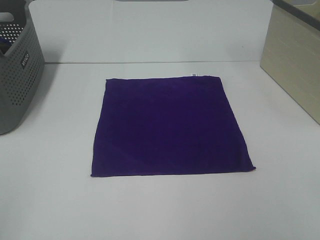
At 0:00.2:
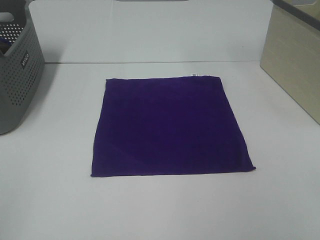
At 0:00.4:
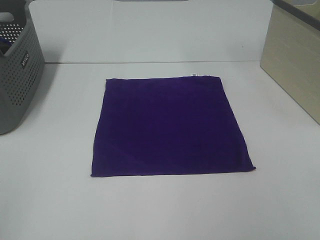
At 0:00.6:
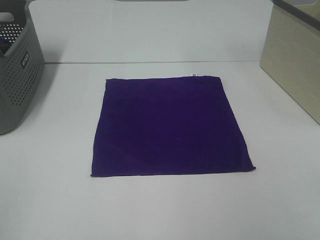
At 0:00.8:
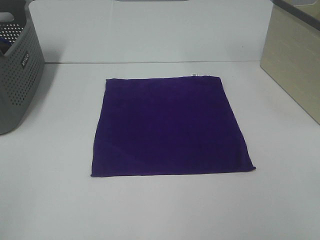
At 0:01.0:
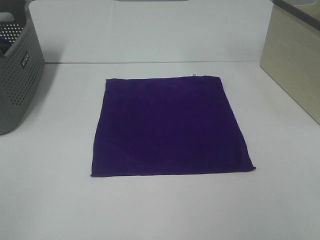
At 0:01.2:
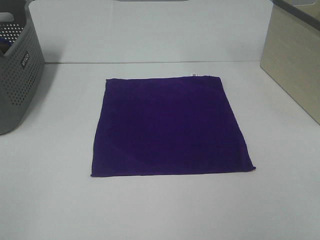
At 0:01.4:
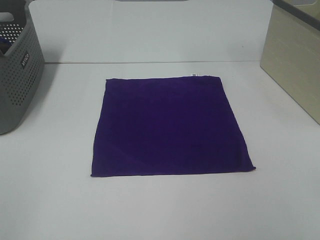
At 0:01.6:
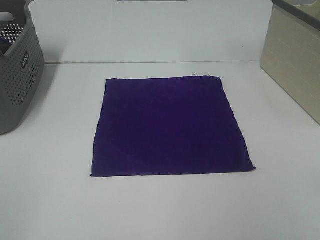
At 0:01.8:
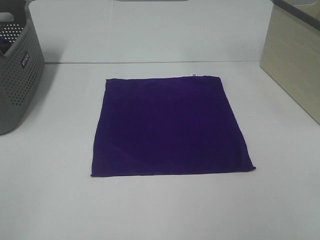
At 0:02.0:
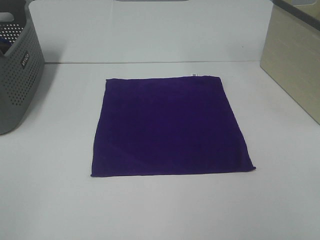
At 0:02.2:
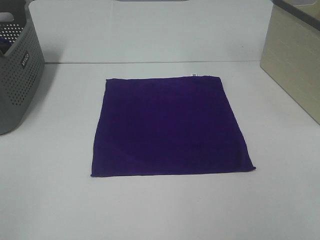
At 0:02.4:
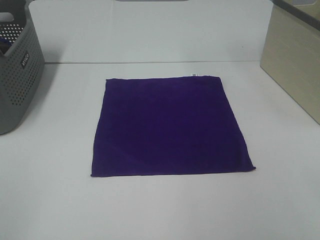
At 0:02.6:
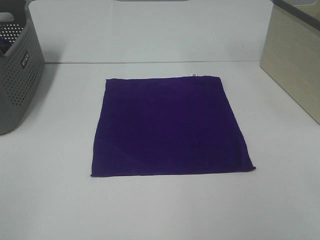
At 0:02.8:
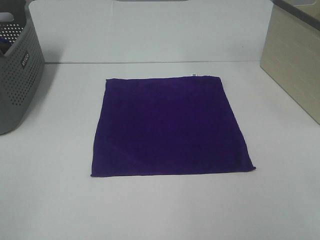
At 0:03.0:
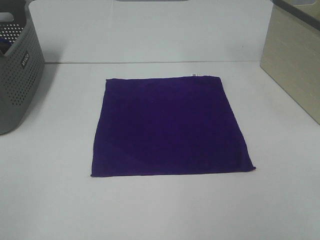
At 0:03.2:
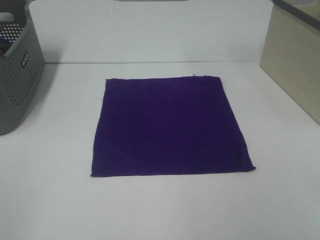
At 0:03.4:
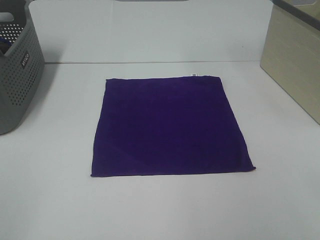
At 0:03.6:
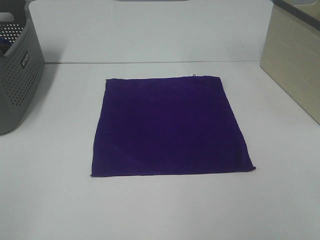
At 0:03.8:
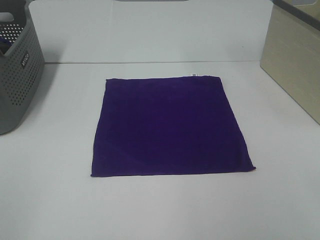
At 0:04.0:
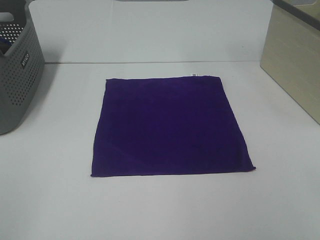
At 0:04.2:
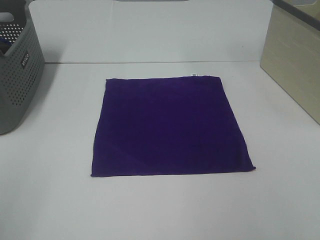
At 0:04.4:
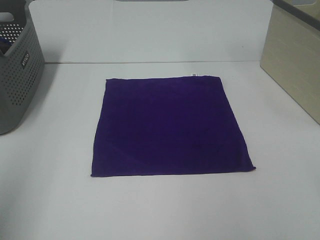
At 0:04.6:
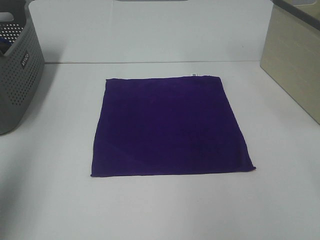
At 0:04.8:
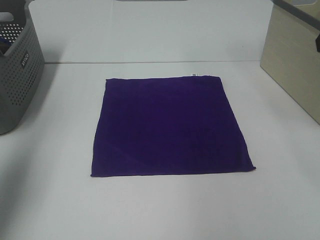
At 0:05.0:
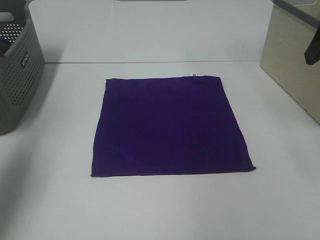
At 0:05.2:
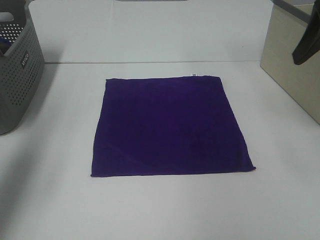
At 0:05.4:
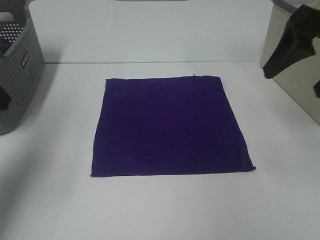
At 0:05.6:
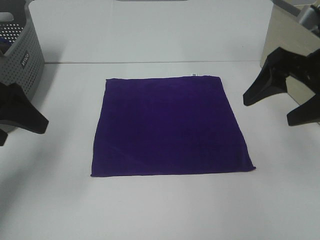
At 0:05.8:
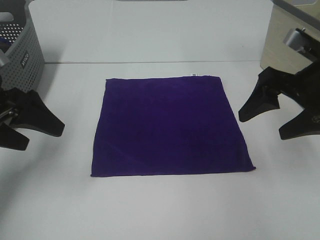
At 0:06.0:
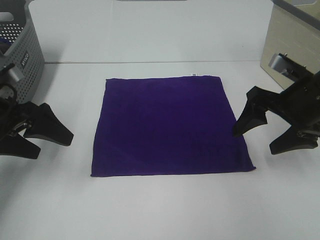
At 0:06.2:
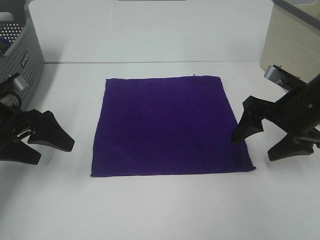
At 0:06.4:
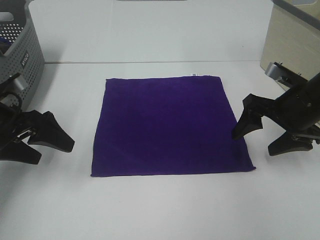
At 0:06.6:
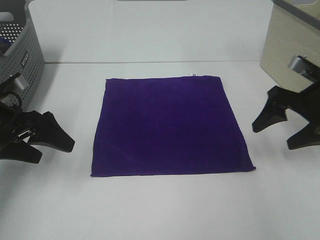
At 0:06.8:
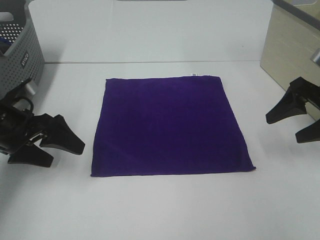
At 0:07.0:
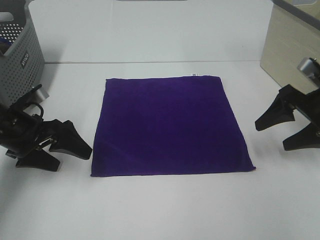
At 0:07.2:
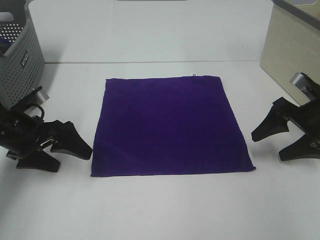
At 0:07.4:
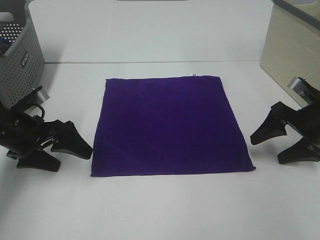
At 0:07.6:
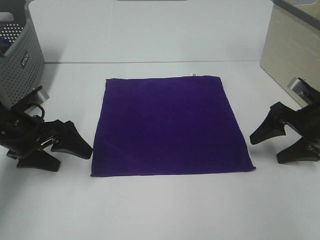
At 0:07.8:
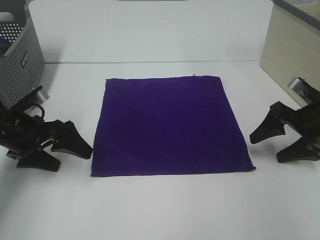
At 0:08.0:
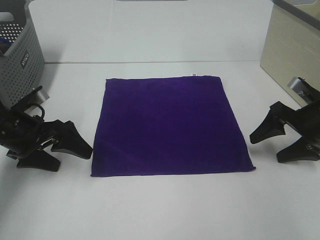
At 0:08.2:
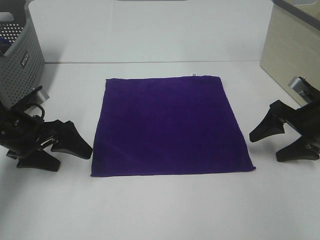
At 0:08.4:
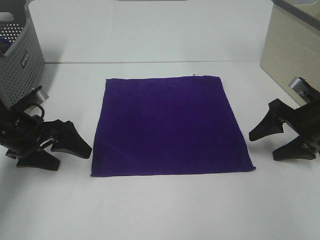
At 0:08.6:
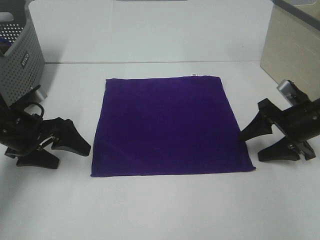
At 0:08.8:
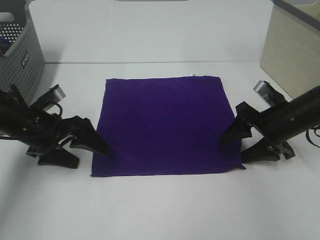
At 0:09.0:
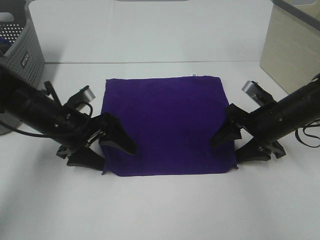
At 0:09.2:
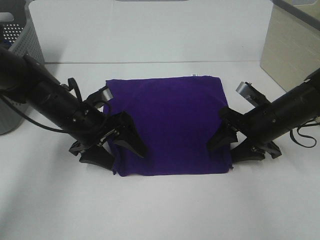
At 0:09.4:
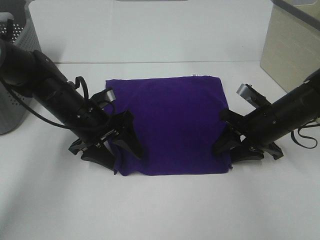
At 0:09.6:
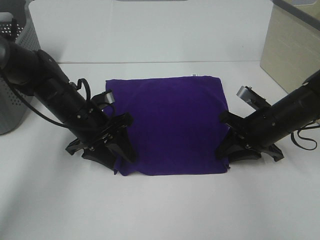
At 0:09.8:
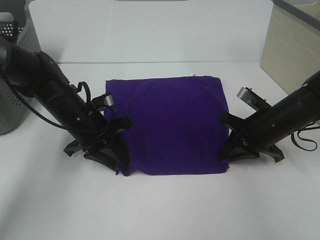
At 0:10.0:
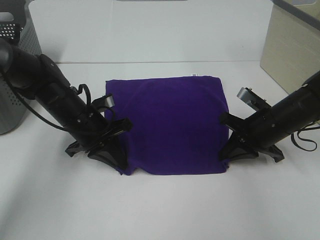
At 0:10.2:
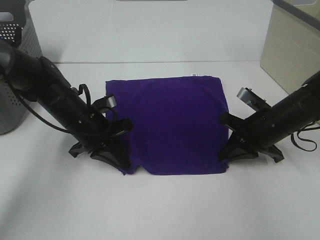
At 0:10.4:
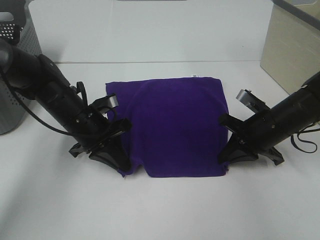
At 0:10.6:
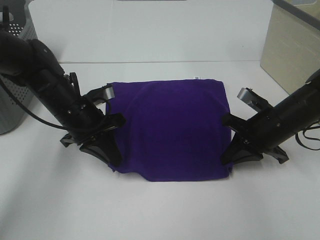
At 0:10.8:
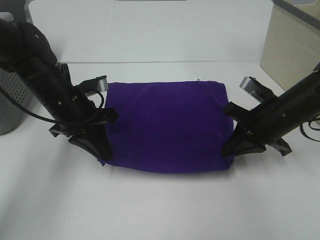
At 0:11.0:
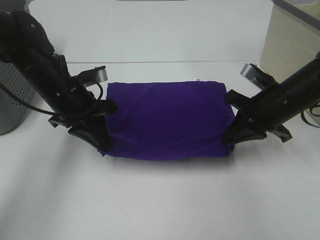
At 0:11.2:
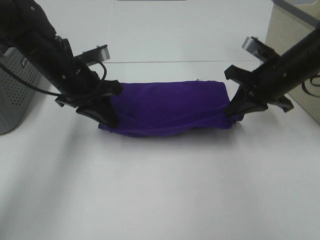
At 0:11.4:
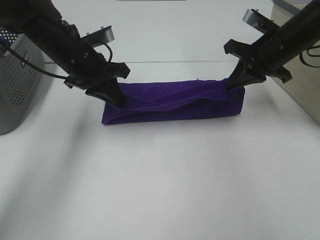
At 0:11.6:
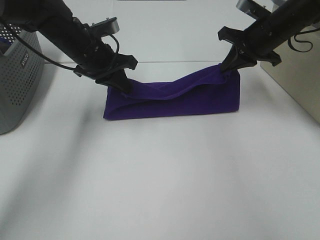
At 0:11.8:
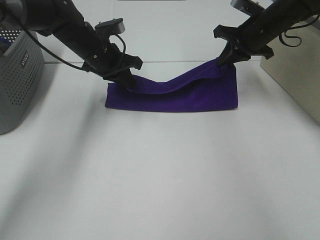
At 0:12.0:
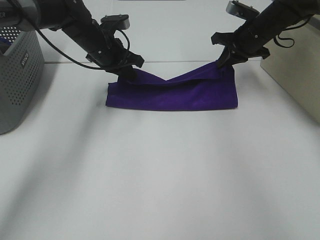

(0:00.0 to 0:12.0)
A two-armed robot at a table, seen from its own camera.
Task of the whole recording: Fold towels.
Step, 0:00.0 - 0:09.8: Left hand: grab the bottom left corner of purple towel.
Step, 0:00.0 - 0:09.8: Right hand: grab the bottom right corner of purple towel.
0:01.6 - 0:03.0: Both grippers stay put.
0:03.0 - 0:04.4: The left gripper travels forward and upward by roughly 10 cm.
0:04.4 - 0:06.0: Both grippers move downward and forward, about 25 cm.
0:06.0 - 0:07.6: The left gripper shifts roughly 5 cm downward; the right gripper is displaced downward and to the right by roughly 10 cm.
0:07.6 - 0:09.0: The right gripper goes about 10 cm to the left, while the left gripper is displaced to the right by some 10 cm.
0:09.0 - 0:10.4: The left gripper closes its fingers. Meanwhile the right gripper closes its fingers.
0:10.4 - 0:12.0: Both grippers travel together forward and upward, roughly 20 cm.

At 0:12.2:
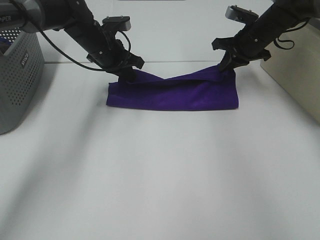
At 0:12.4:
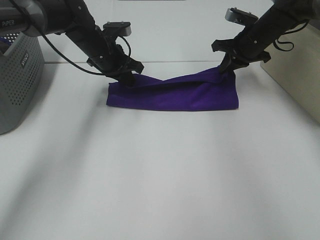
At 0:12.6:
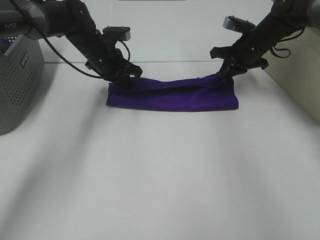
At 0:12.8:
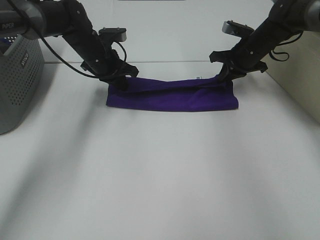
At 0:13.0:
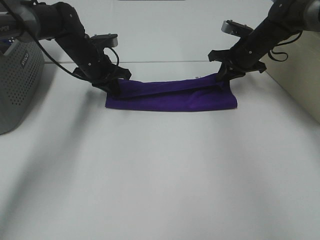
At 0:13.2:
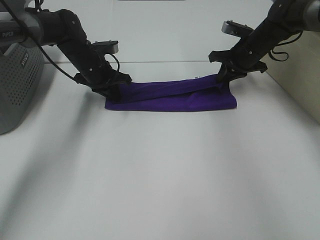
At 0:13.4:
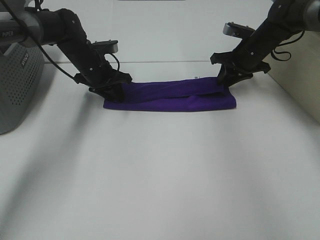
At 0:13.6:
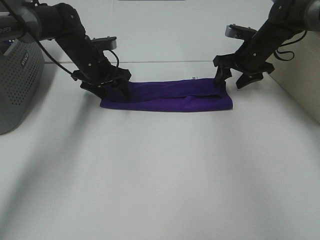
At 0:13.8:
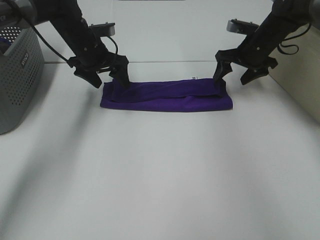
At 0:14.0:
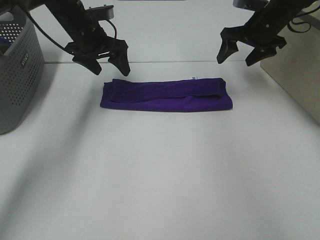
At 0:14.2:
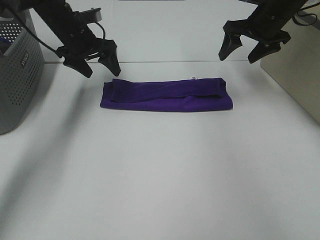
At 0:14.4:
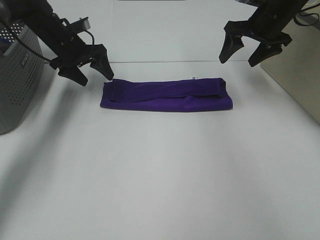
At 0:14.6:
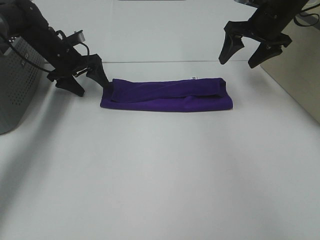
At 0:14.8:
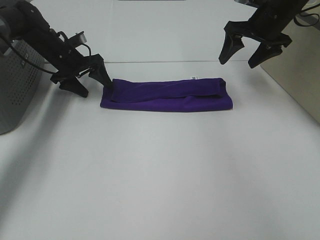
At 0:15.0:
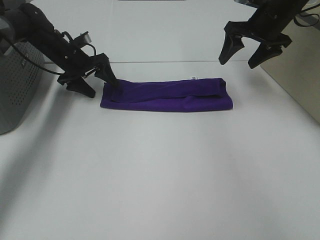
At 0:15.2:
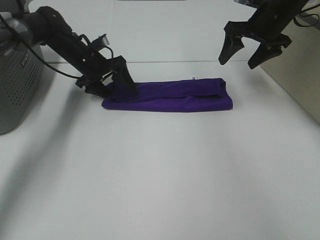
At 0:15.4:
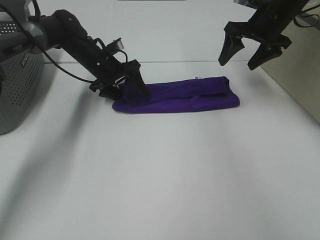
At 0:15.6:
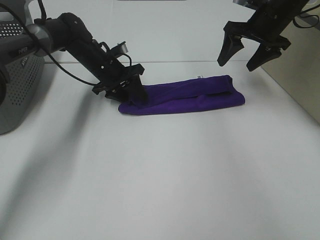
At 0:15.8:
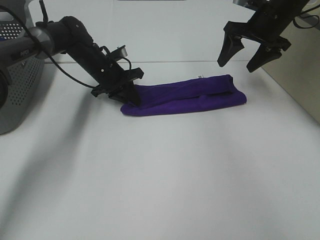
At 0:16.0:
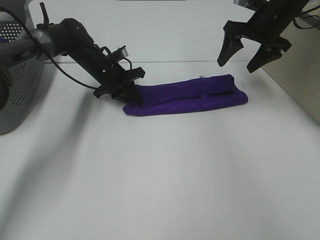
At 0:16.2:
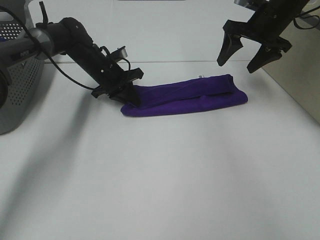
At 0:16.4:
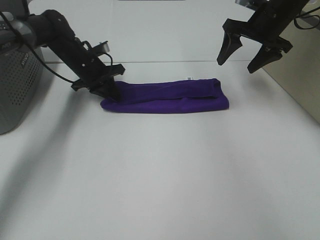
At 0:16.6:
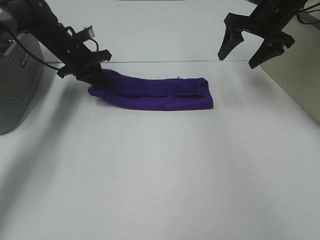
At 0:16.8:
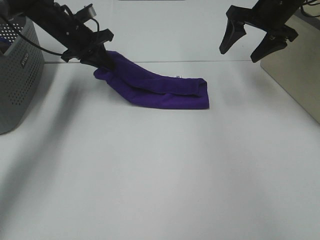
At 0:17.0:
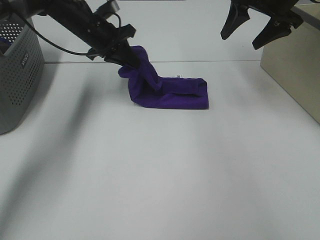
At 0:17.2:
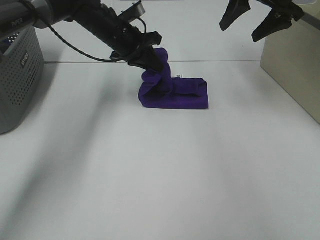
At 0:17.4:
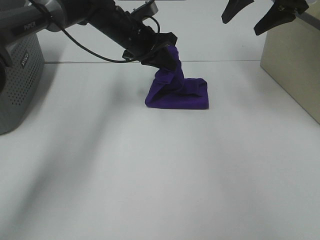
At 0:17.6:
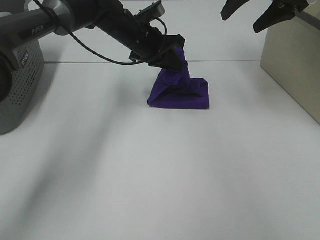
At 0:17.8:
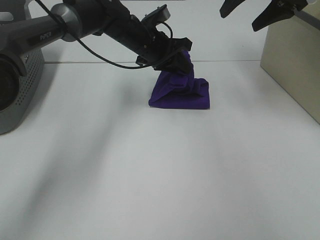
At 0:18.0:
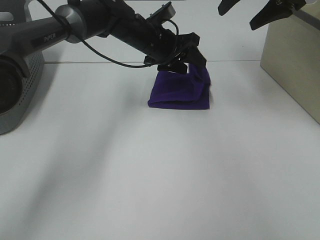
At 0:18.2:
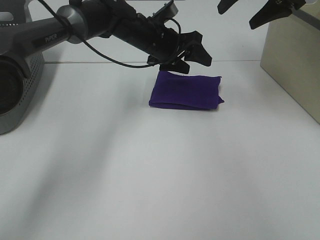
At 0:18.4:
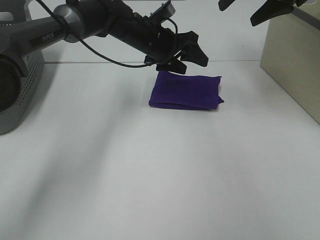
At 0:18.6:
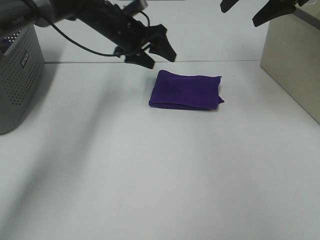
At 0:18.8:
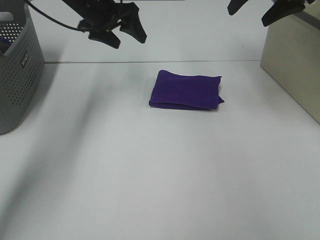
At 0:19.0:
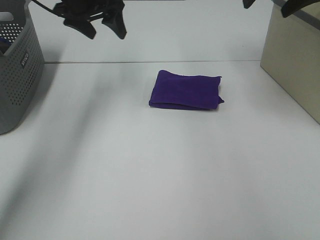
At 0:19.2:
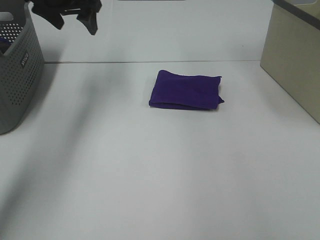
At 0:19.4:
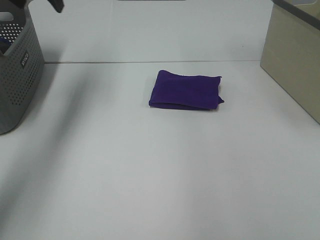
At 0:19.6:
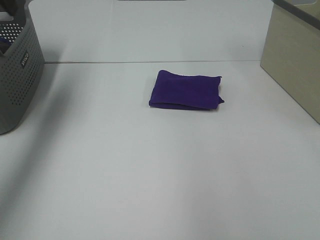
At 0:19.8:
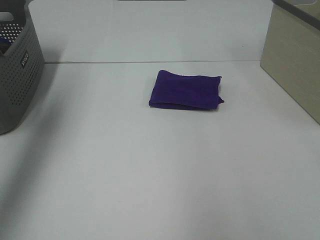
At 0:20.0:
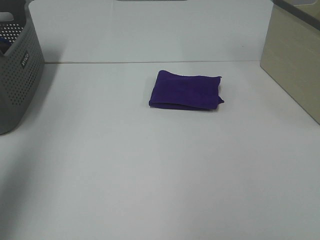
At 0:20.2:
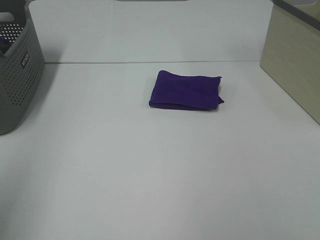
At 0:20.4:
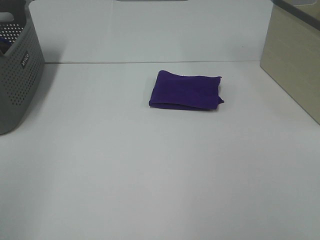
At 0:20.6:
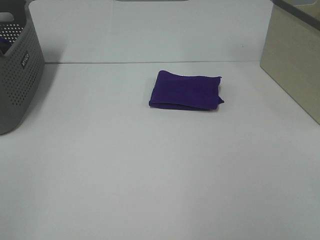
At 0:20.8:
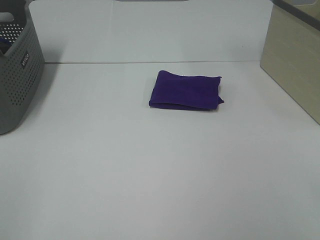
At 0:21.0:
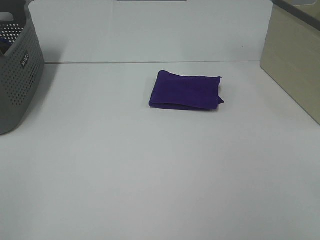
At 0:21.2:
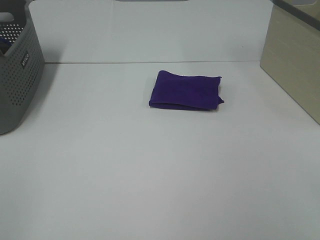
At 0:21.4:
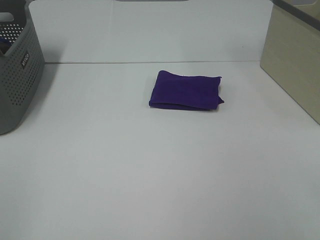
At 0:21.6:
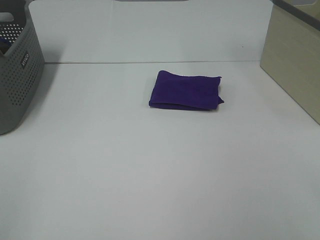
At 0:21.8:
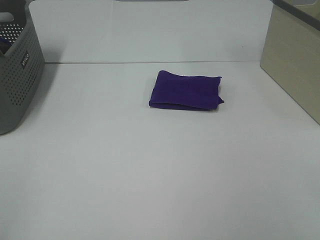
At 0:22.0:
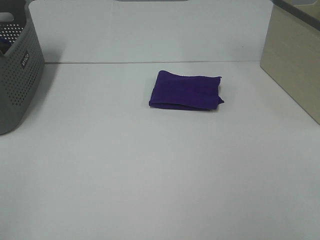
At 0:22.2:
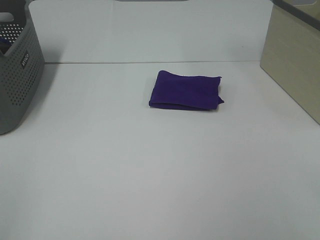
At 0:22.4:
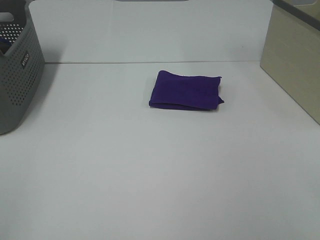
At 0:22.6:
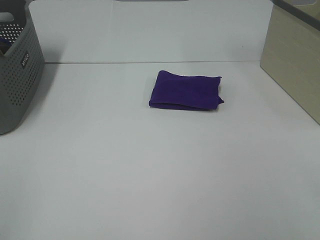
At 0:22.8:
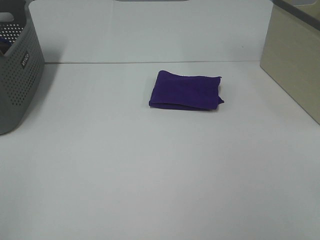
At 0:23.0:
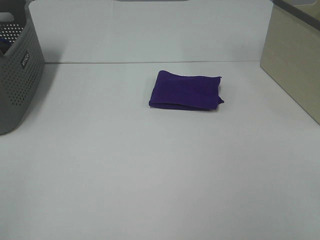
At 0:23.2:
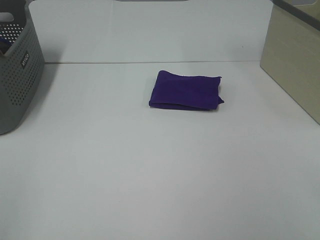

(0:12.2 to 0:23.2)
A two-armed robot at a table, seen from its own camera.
Task of the whole recording: Fold towels.
Step, 0:13.4 - 0:17.8: Left hand: fold the purple towel from left to right.
0:12.2 - 0:13.8: The left gripper opens up; the right gripper opens its fingers.
0:13.8 - 0:15.4: The left gripper goes about 5 cm downward, and goes to the left and returns, approximately 10 cm each way, while the right gripper is displaced upward by some 5 cm.
0:15.4 - 0:17.0: The two grippers go about 5 cm upward. The left gripper closes.
0:17.0 - 0:18.4: The left gripper shifts some 10 cm to the right, and opens.
0:18.4 - 0:20.0: The right gripper is displaced backward by roughly 35 cm; the left gripper heads backward, to the left and upward, covering some 50 cm.
0:20.0 - 0:21.6: The left gripper heads backward and downward, covering some 20 cm.
0:21.6 - 0:23.2: Both grippers stay put.
